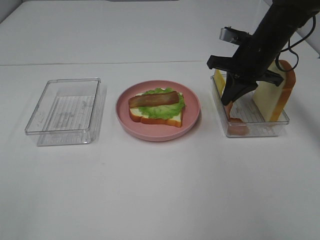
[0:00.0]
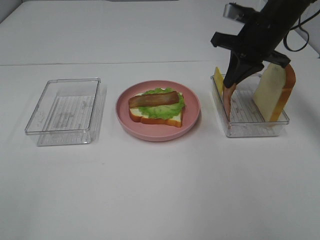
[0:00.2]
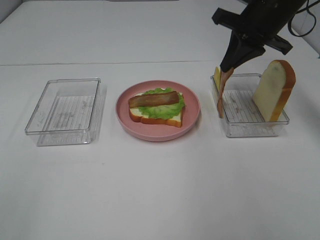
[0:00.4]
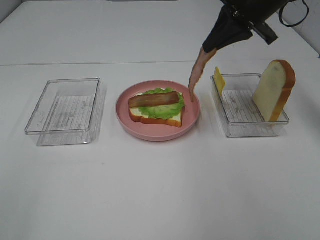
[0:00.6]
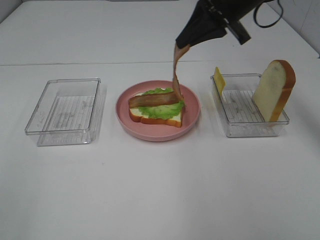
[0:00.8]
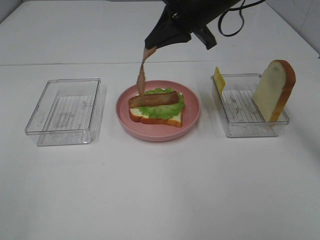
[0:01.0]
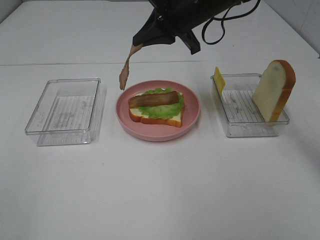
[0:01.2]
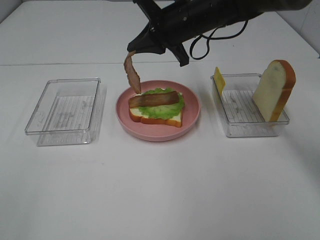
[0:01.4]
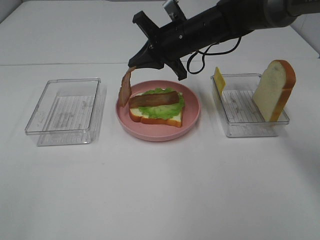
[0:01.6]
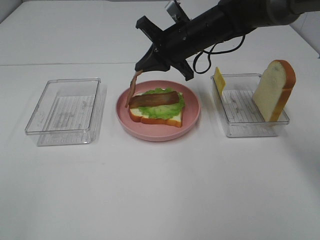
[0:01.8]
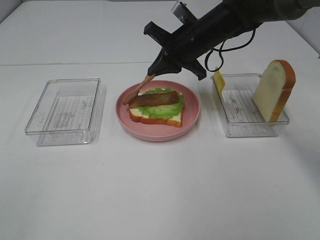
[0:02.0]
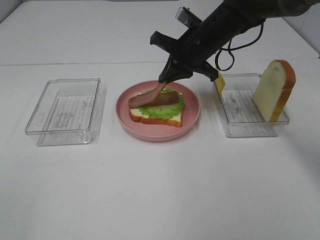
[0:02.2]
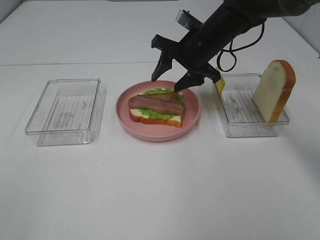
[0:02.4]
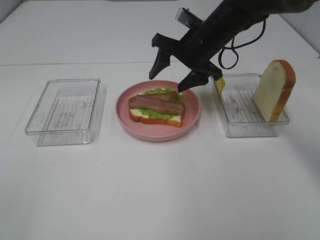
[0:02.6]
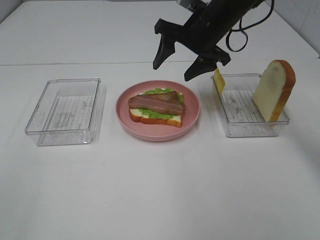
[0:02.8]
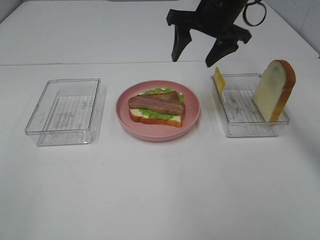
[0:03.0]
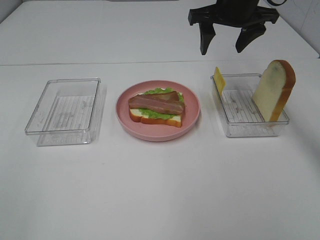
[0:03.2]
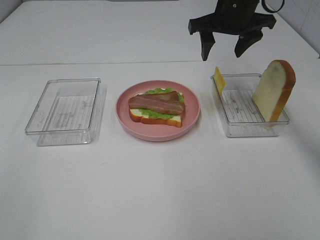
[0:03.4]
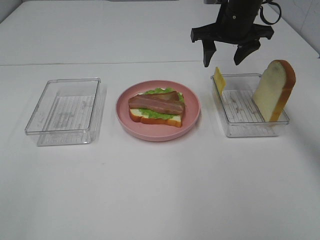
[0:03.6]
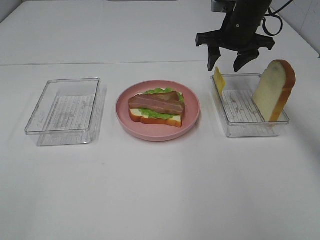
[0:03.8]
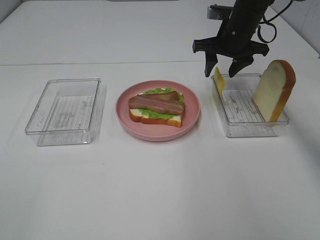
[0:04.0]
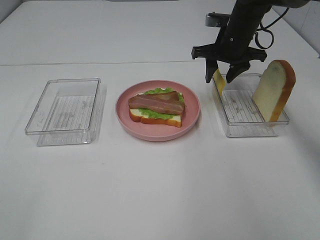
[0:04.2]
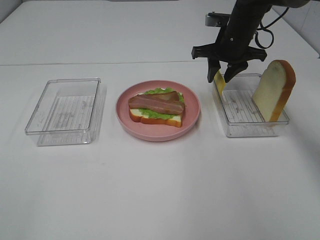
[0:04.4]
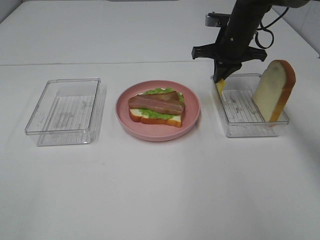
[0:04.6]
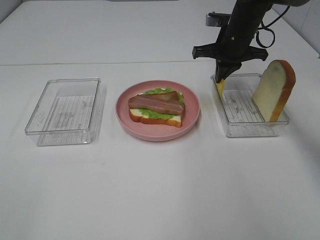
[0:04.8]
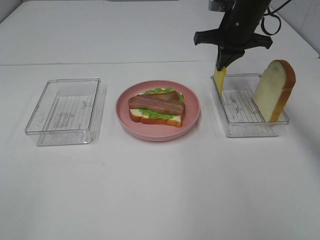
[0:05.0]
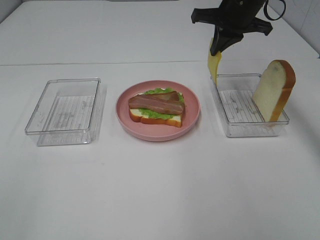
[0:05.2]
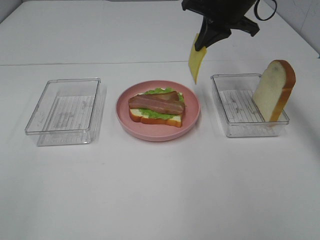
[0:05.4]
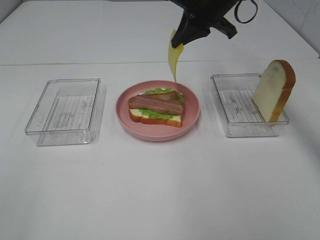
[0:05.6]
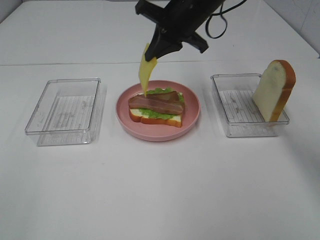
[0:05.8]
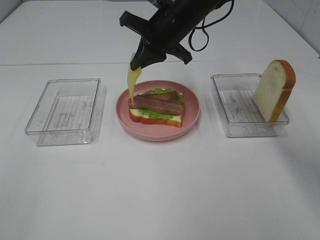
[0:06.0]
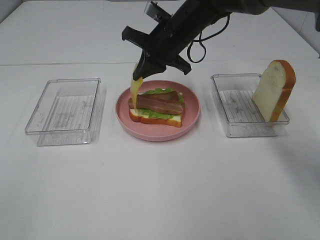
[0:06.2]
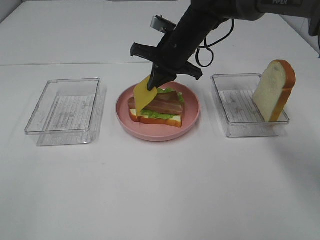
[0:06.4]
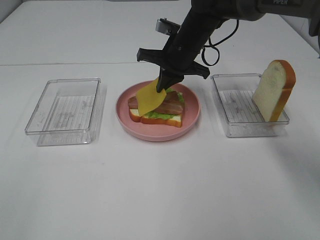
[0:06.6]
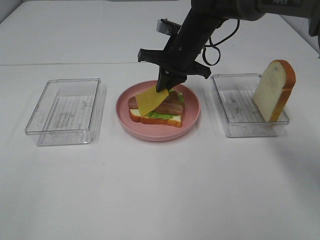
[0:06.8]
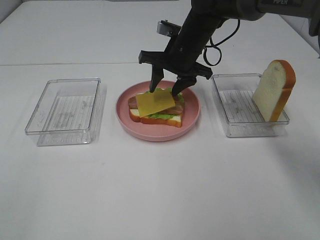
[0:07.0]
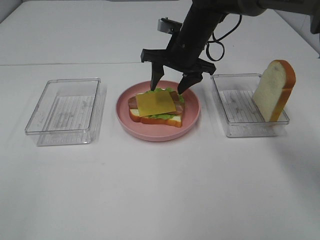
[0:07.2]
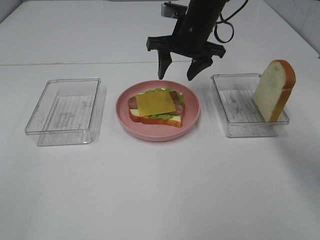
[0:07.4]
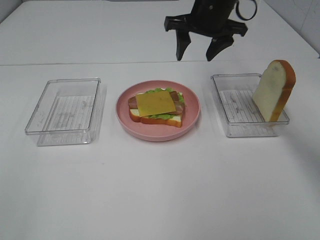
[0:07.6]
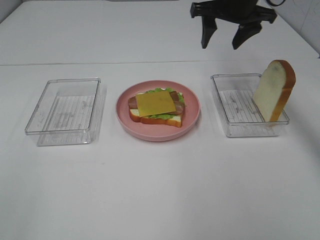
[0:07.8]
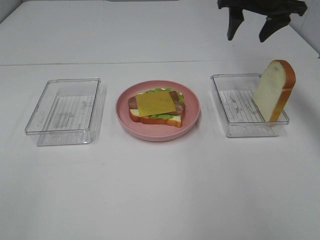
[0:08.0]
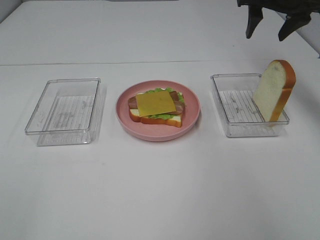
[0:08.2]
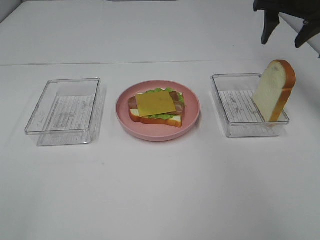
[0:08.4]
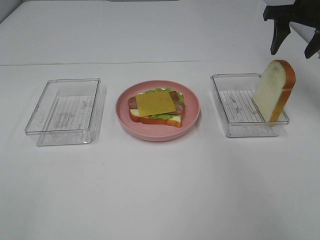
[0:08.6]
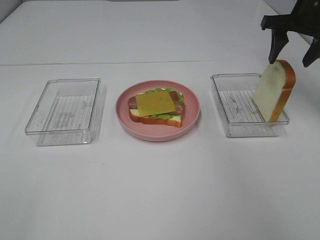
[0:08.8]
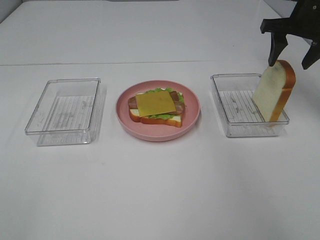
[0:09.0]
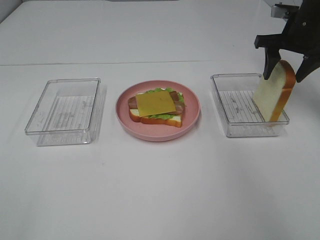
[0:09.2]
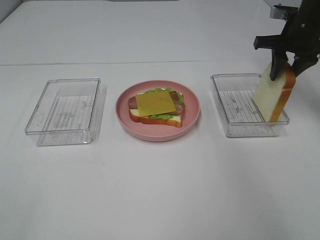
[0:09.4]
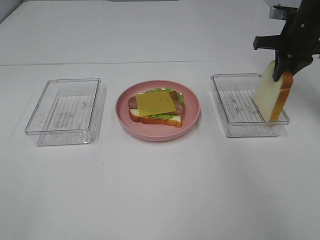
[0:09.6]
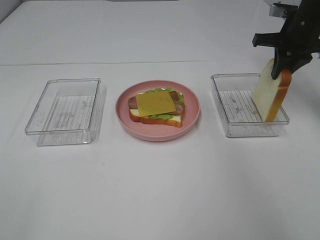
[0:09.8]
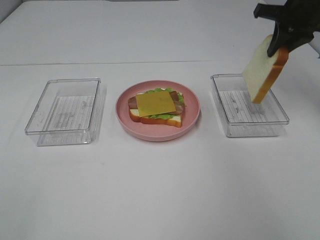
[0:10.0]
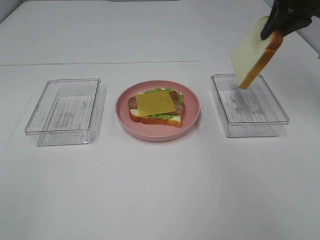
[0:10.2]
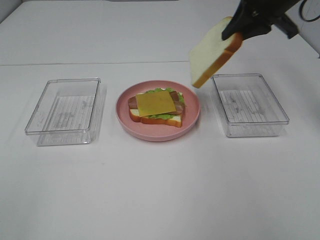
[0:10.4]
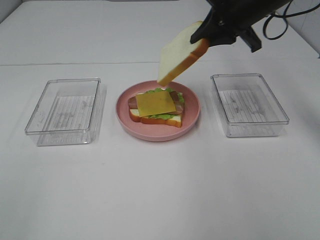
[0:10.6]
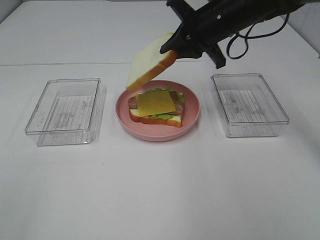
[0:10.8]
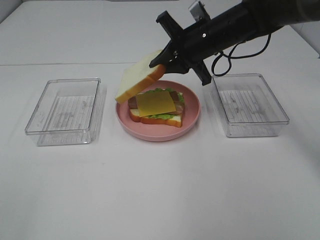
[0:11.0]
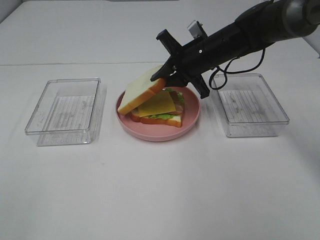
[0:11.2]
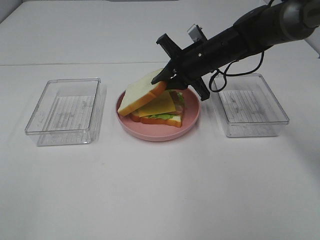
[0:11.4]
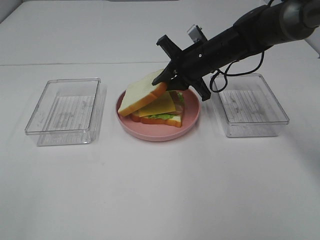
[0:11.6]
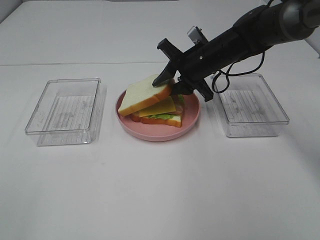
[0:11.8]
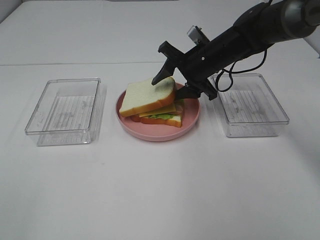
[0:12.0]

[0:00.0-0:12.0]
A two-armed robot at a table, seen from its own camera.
Task of the whole recording: Make sandwiches.
Step, 0:00.0 to 0:02.8: Right hand:place bacon on bacon.
Step, 0:03.0 to 0:04.2: Right hand:grab the cheese slice.
Step, 0:04.4 to 0:07.2: Right hand:place the cheese slice on top of the bacon.
Step, 0:07.4 to 0:09.8: Right hand:grab the bread slice.
0:00.0 to 0:01.6: The right gripper heads to the left, covering approximately 15 cm.
0:01.6 to 0:03.0: The right gripper heads upward and to the right, covering some 10 cm, and opens up.
0:03.0 to 0:04.4: The right gripper travels downward and forward by approximately 10 cm, and closes up.
0:04.4 to 0:06.0: The right gripper is displaced to the left by some 10 cm, and closes up.
0:06.0 to 0:07.6: The right gripper goes approximately 5 cm to the right, and opens.
0:07.6 to 0:09.0: The right gripper heads to the right, covering some 15 cm.
0:09.0 to 0:10.4: The right gripper moves to the left, about 10 cm, and closes its fingers.
0:10.4 to 0:12.0: The right gripper moves downward and to the left, approximately 15 cm, and opens up.

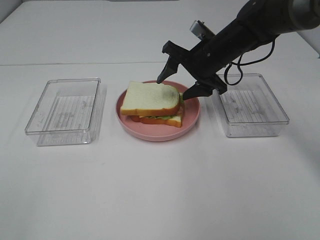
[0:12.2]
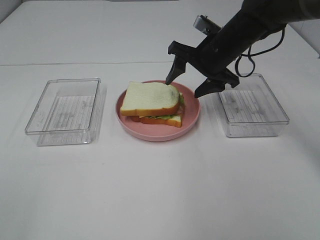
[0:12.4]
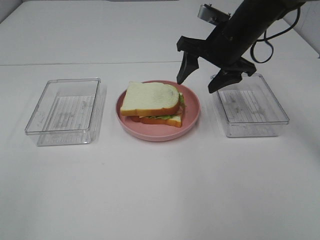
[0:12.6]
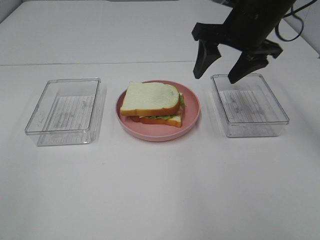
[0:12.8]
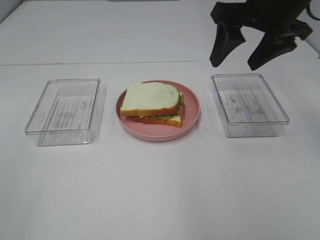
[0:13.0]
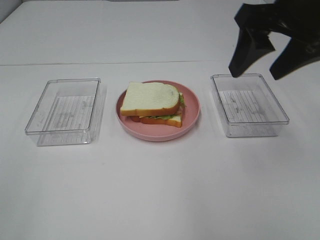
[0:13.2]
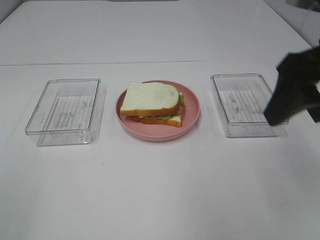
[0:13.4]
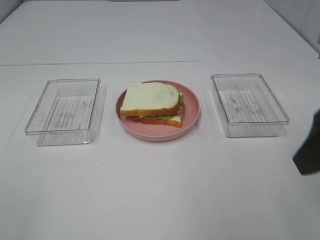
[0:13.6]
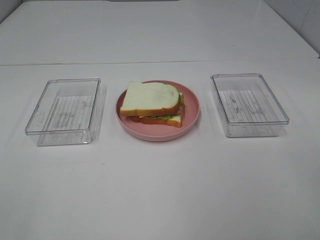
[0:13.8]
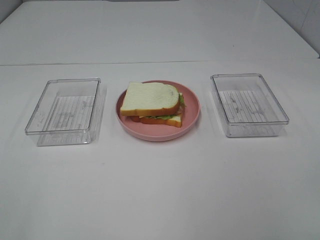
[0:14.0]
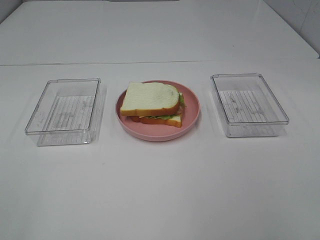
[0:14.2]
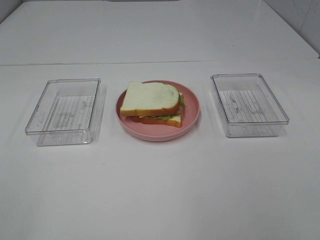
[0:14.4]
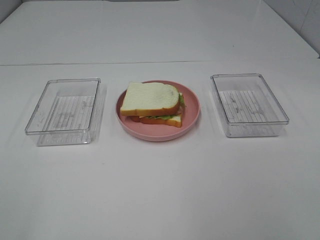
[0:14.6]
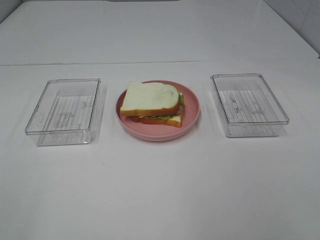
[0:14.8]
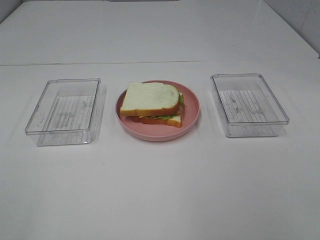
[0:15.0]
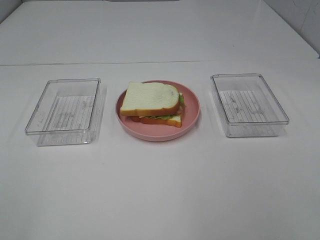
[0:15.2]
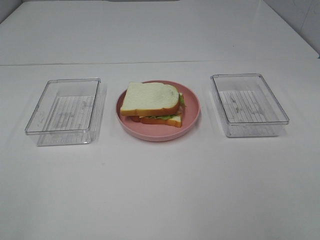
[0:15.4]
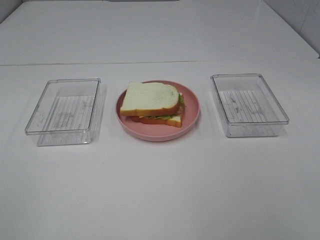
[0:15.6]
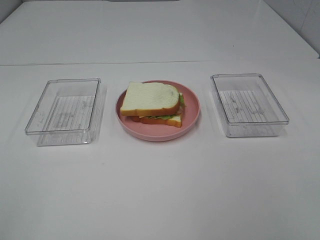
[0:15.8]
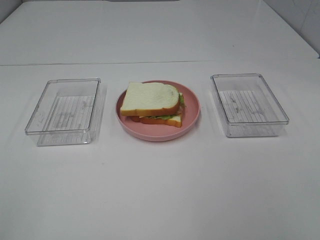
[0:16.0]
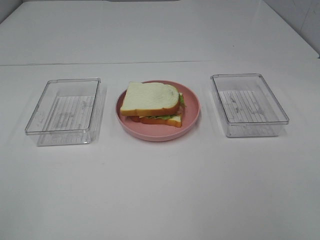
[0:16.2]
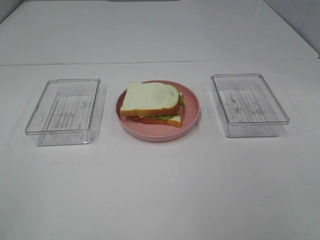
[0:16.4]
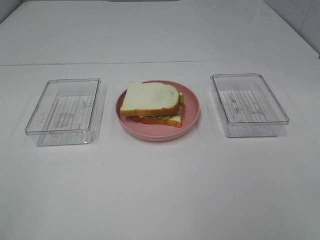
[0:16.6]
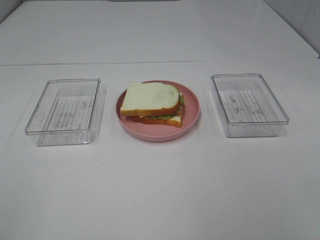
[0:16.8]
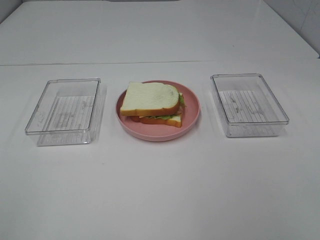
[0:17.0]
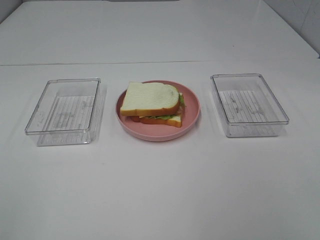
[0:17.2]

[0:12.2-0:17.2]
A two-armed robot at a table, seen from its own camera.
Task of the whole recording: Make sandwiches.
0:12.2 to 0:13.8: The right gripper goes roughly 35 cm backward and to the right.
0:15.6 to 0:17.2: The two grippers keep their place.

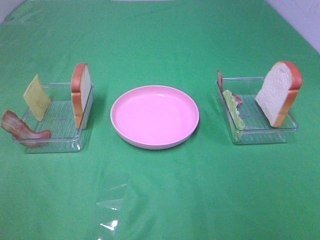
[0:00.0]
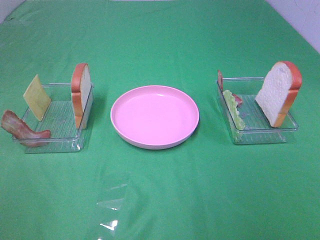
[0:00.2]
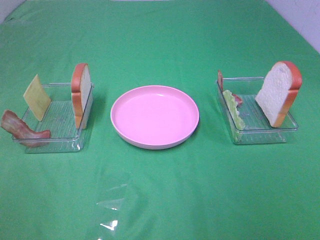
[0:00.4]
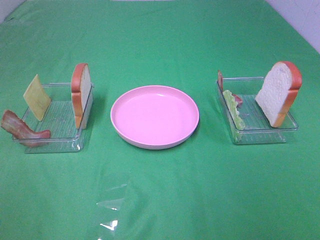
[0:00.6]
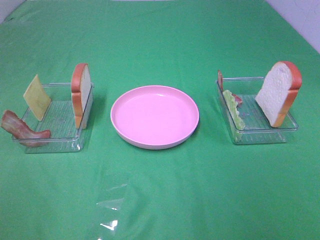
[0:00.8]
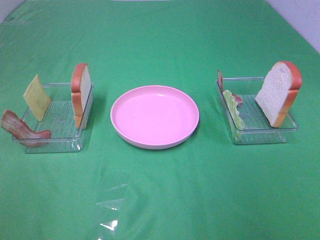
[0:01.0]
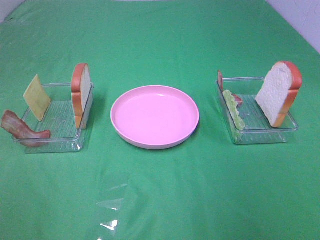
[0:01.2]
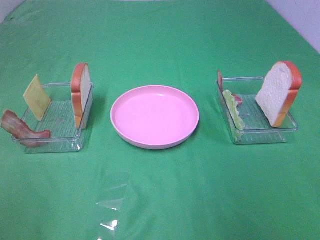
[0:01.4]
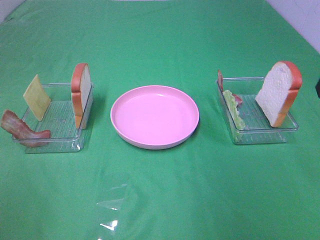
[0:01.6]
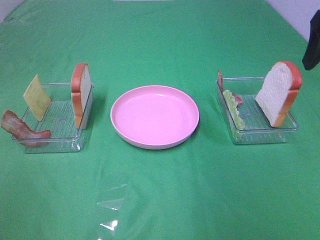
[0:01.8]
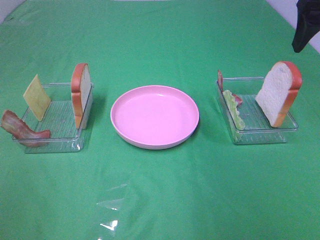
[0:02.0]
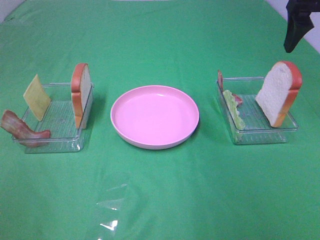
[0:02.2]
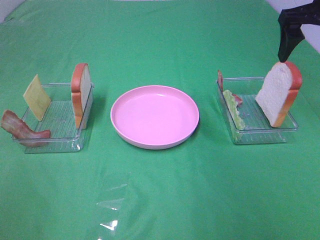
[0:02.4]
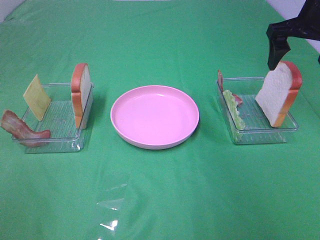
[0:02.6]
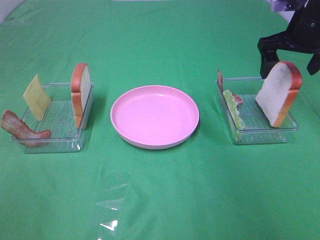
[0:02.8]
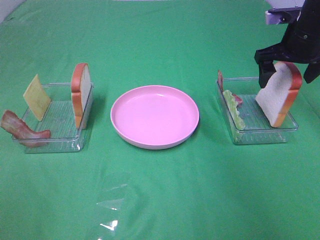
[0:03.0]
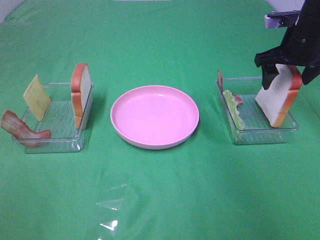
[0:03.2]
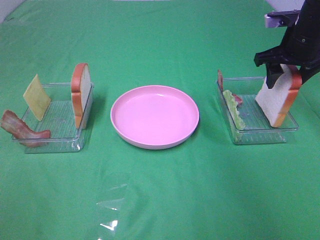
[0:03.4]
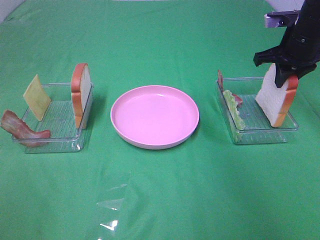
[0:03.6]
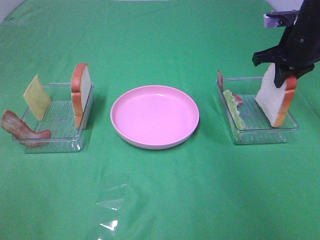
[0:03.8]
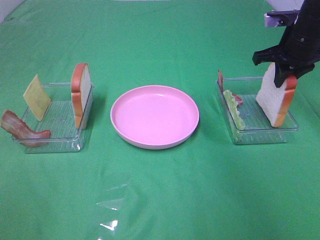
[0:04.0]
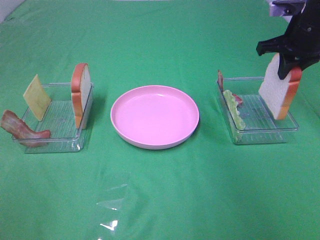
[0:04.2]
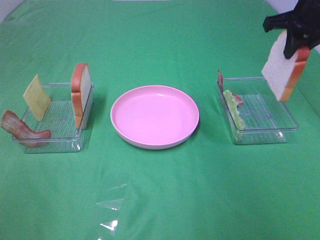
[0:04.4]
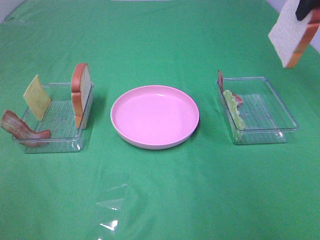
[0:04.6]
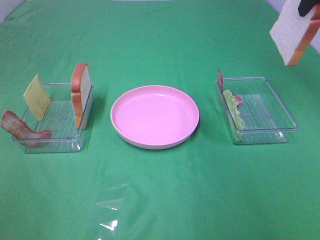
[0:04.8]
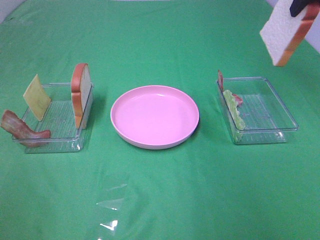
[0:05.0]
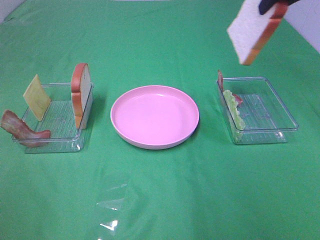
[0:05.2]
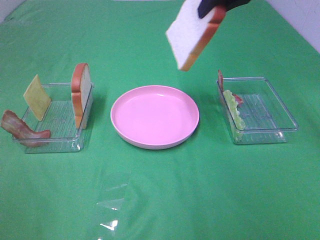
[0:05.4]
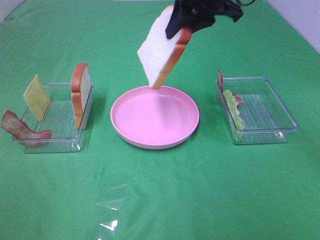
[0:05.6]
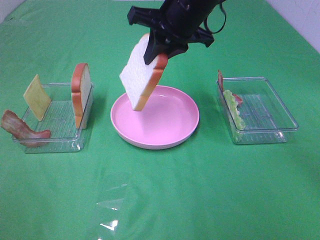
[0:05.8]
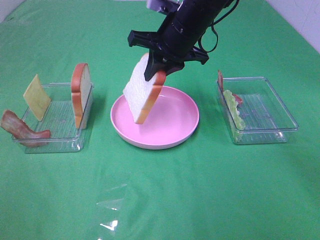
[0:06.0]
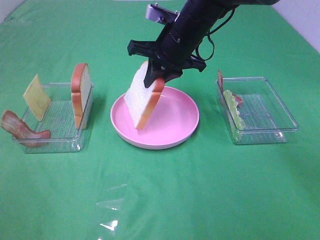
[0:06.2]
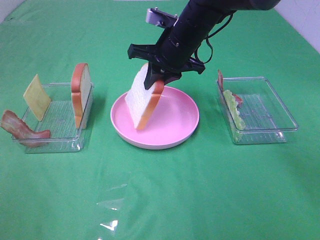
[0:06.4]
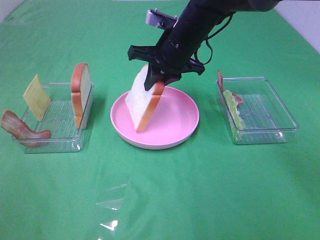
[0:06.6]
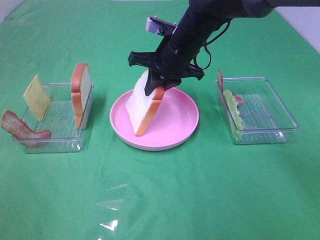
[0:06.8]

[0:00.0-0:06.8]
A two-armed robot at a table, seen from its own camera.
Task of the whole recording: Make sandwiches.
Step, 0:00.0 to 0:03.6: Right hand:grab the bread slice.
0:01.4 to 0:02.8: The right gripper goes roughly 25 cm forward.
0:02.8 to 0:04.0: The right gripper closes up.
0:04.0 to 0:05.4: The right gripper heads to the left and upward, covering about 20 cm.
0:05.4 to 0:06.8: The right gripper shifts about 20 cm downward and to the left.
